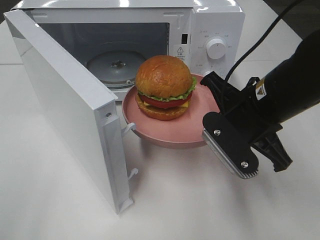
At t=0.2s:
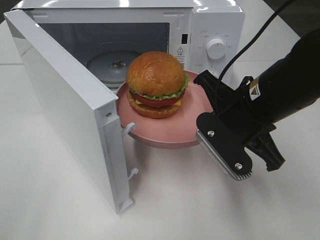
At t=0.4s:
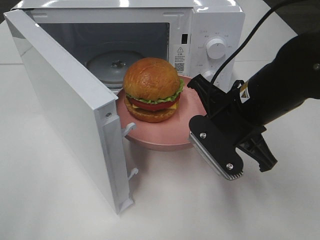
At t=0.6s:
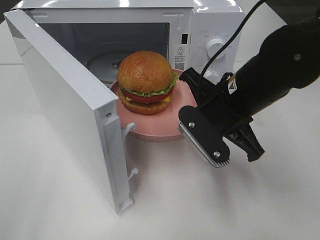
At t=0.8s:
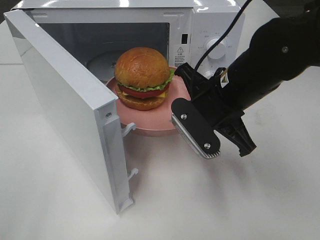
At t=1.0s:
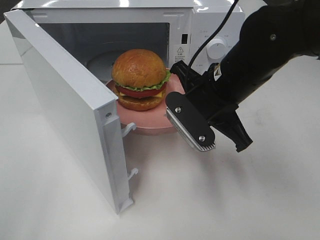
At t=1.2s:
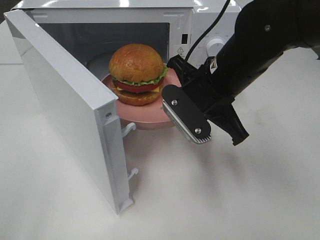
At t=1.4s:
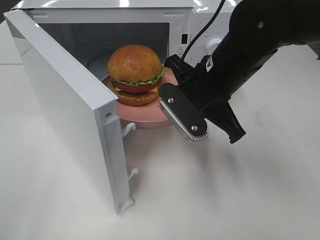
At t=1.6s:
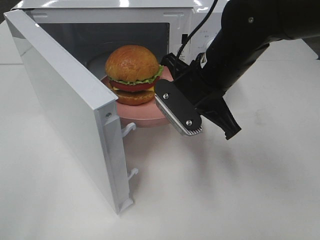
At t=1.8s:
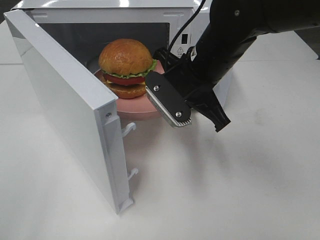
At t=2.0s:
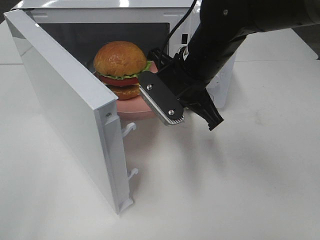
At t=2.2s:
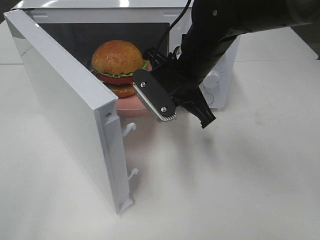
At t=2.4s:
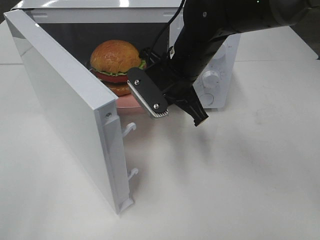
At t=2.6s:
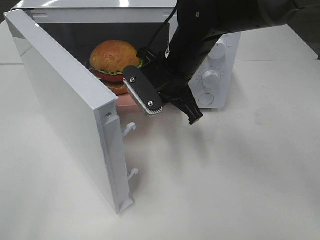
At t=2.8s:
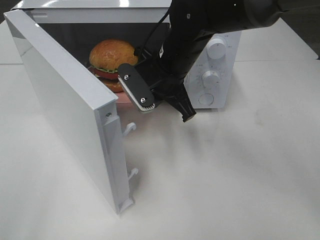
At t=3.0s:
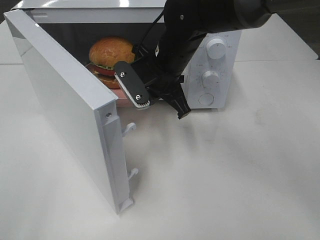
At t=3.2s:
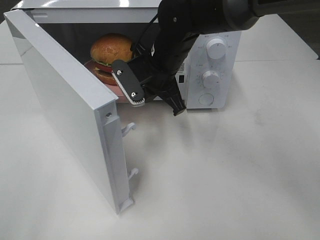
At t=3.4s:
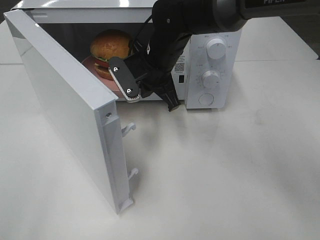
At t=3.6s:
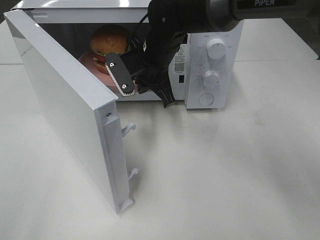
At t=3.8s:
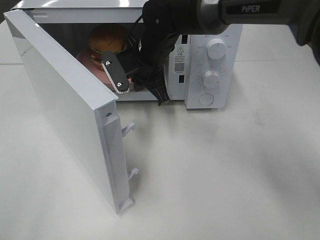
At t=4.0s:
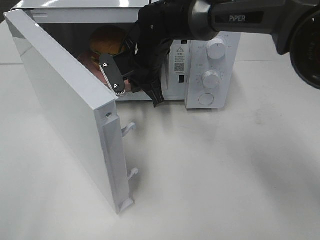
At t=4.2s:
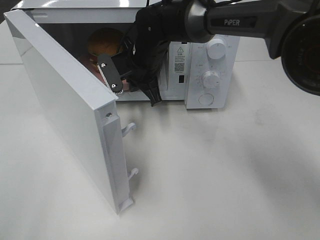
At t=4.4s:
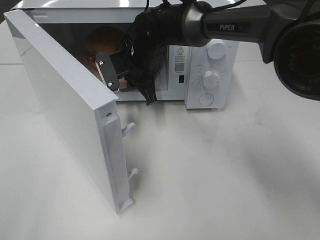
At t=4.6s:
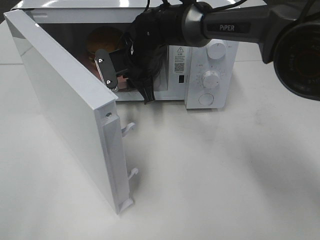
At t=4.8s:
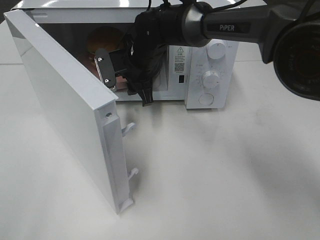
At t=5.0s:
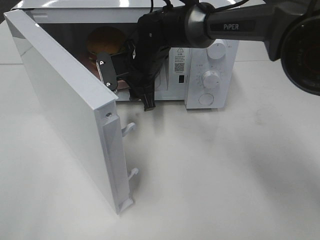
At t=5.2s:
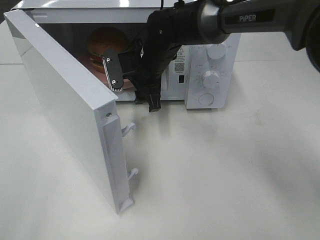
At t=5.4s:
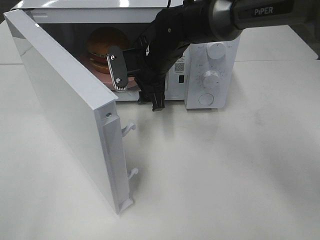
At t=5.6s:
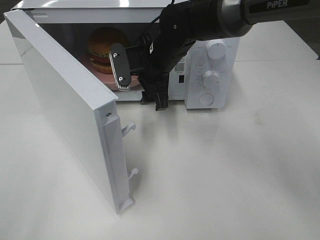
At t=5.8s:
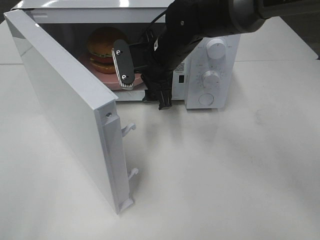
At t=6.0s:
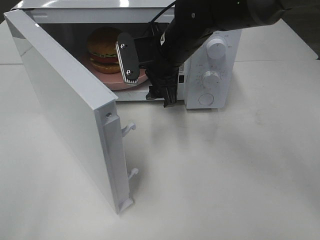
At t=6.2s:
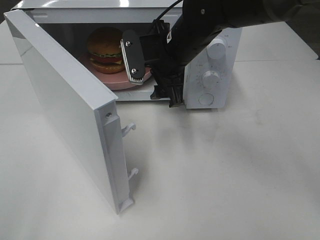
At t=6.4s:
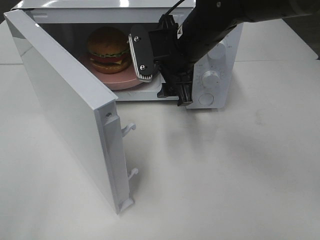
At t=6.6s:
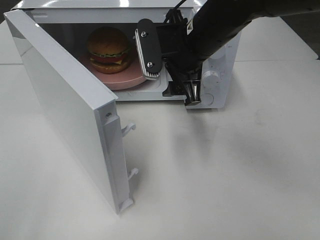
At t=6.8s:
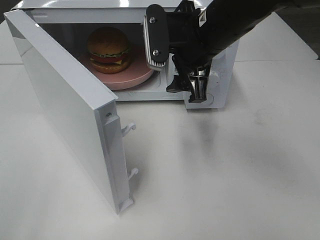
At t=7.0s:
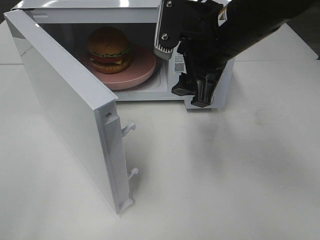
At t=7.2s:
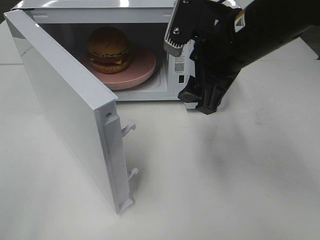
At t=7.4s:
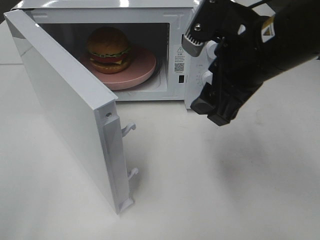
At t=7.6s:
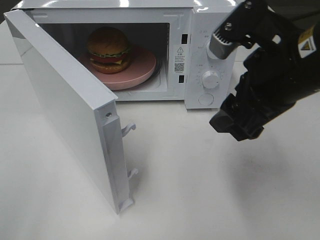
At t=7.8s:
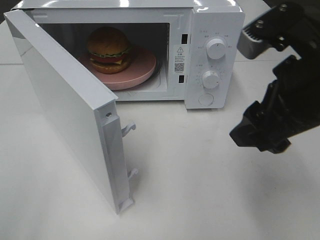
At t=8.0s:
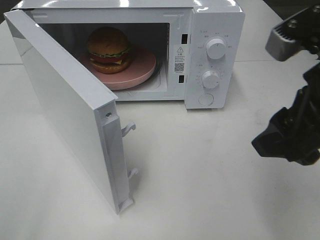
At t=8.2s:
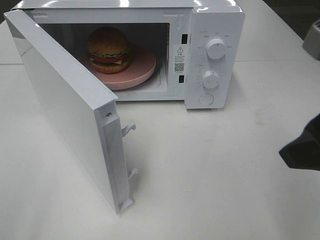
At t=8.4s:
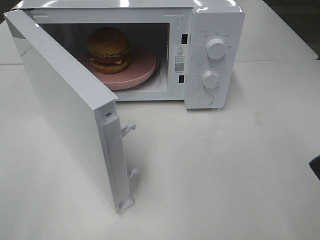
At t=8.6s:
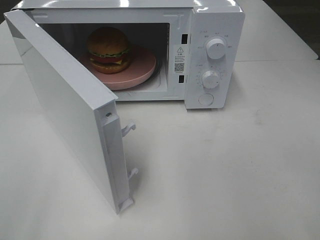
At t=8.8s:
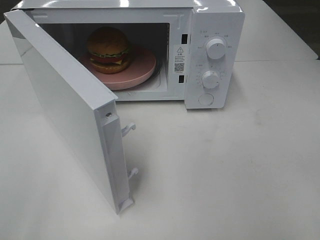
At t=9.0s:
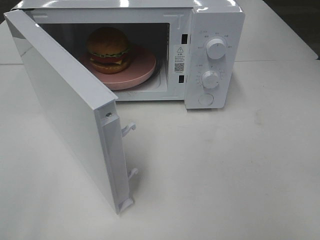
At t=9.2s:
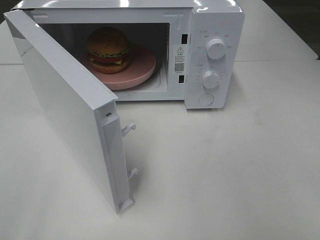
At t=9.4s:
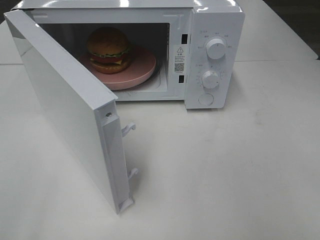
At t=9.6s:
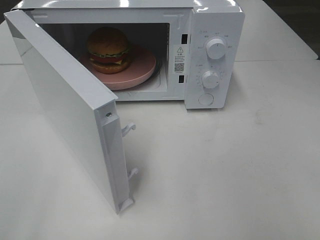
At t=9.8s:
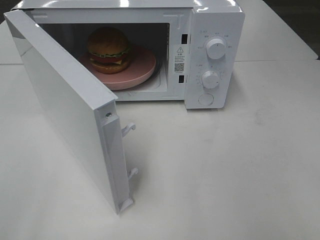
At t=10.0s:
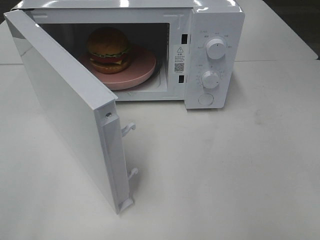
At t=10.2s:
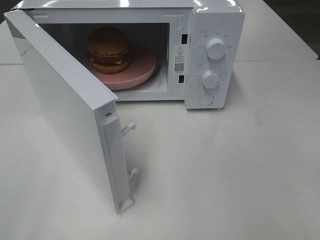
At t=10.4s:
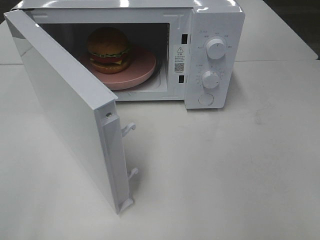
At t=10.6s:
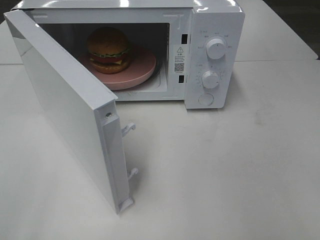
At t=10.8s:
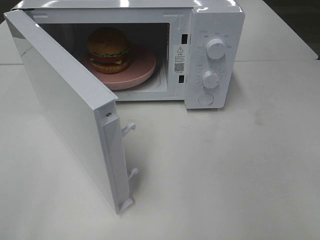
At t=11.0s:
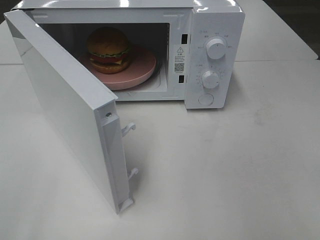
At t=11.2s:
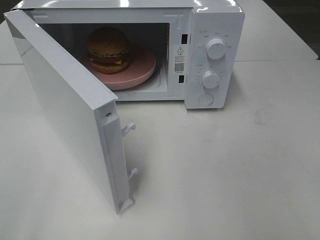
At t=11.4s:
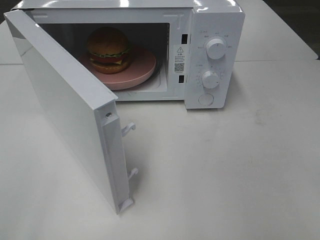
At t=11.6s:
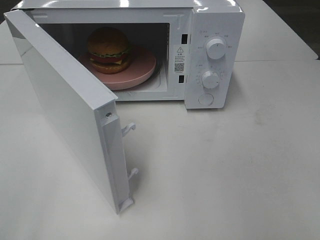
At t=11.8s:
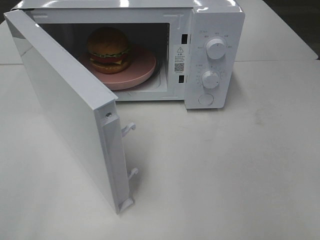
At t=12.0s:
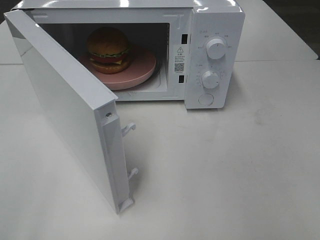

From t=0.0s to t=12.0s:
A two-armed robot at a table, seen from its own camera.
Task of the whole recording: Heat the burger.
Step, from t=0.0s to t=4.6s: Right hand: place the plate in the microwave.
From t=0.0s to t=1.6s: The right gripper heads forward and to the left, covering some 10 cm.
From t=1.6s to t=3.0s: The right gripper travels forward and to the left by approximately 10 cm.
From t=3.0s to t=4.4s: The right gripper is displaced forward by roughly 5 cm.
From t=4.4s to t=6.0s: The right gripper heads backward and to the right, covering approximately 10 cm, and opens.
From t=6.0s to t=7.6s: The right gripper moves backward, to the right and upward, some 20 cm.
From t=7.6s to t=9.0s: The right gripper heads backward and to the right, covering some 20 cm.
From t=10.4s to t=12.0s: The two grippers keep their place.

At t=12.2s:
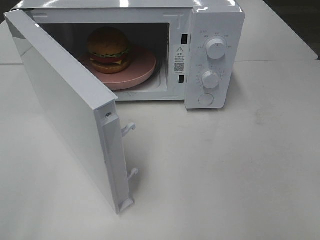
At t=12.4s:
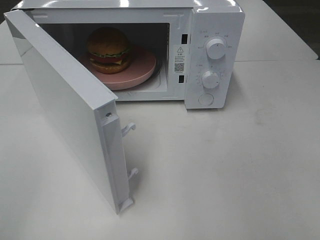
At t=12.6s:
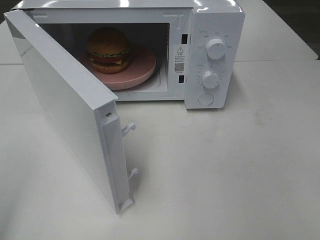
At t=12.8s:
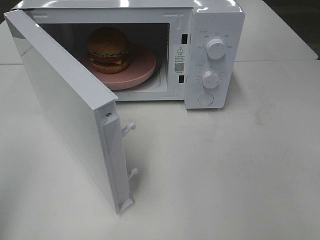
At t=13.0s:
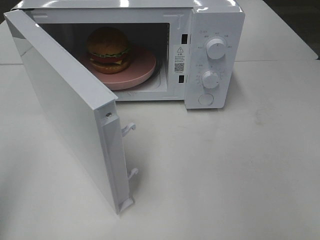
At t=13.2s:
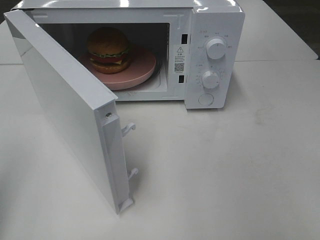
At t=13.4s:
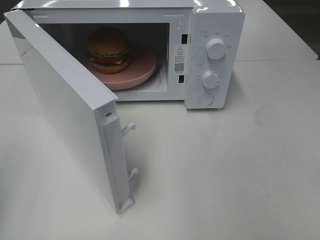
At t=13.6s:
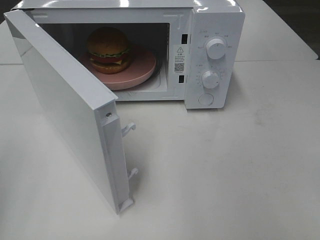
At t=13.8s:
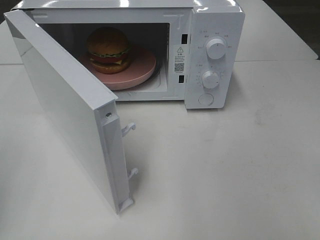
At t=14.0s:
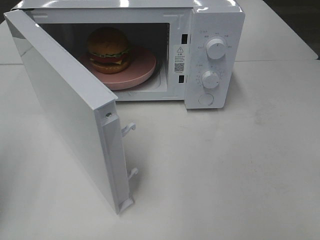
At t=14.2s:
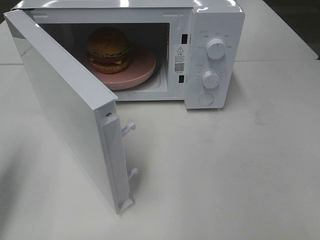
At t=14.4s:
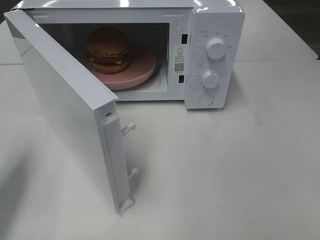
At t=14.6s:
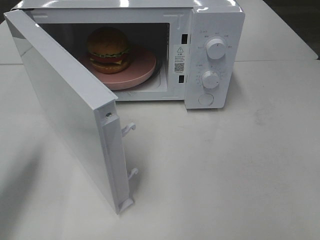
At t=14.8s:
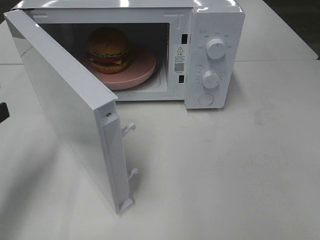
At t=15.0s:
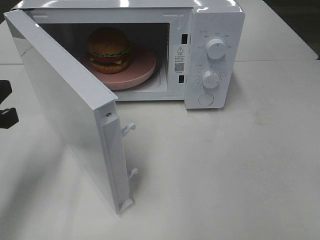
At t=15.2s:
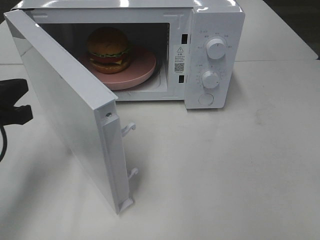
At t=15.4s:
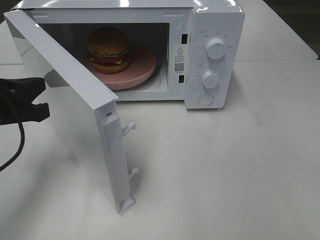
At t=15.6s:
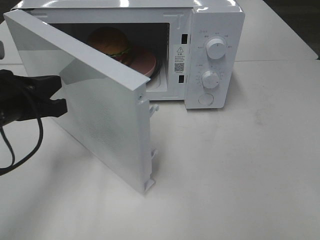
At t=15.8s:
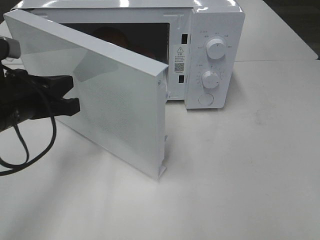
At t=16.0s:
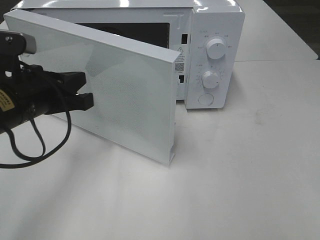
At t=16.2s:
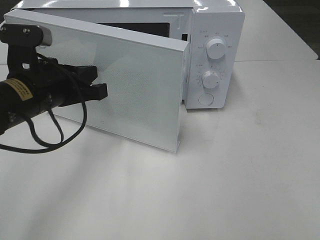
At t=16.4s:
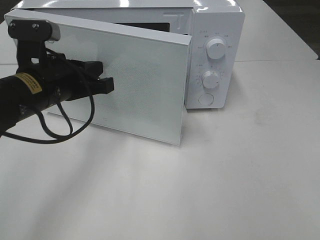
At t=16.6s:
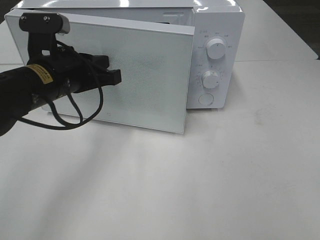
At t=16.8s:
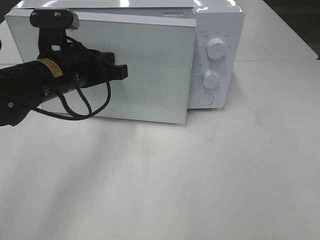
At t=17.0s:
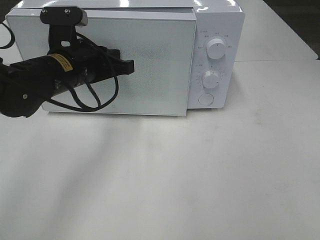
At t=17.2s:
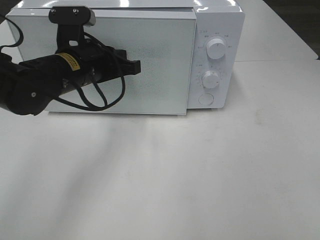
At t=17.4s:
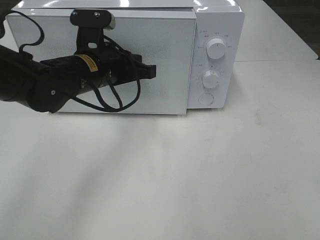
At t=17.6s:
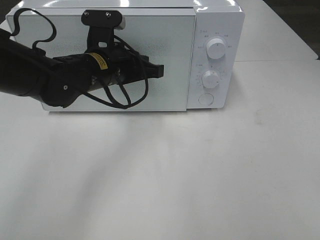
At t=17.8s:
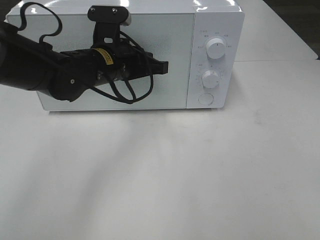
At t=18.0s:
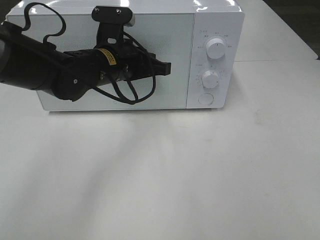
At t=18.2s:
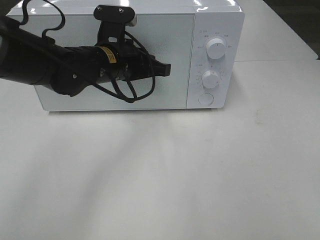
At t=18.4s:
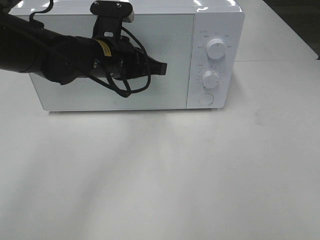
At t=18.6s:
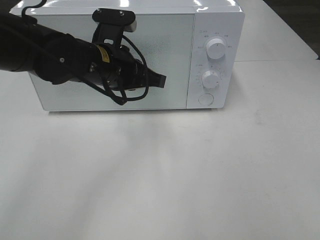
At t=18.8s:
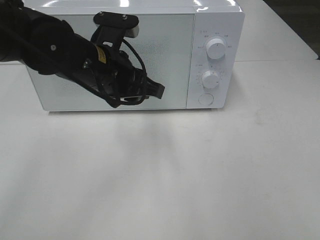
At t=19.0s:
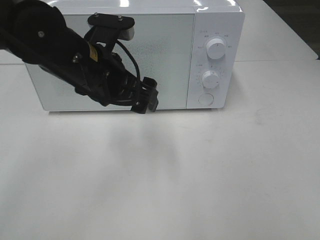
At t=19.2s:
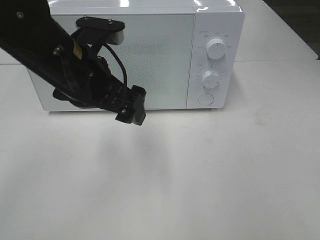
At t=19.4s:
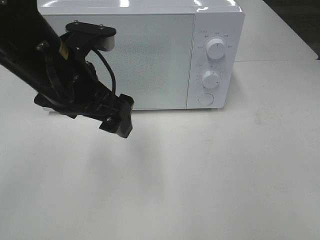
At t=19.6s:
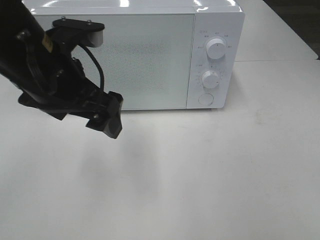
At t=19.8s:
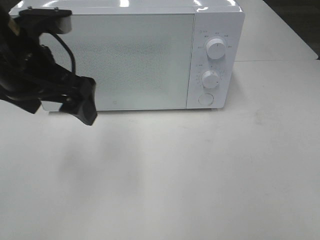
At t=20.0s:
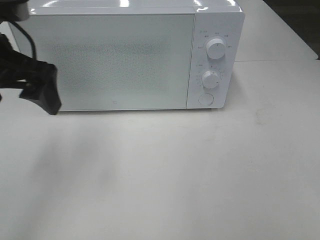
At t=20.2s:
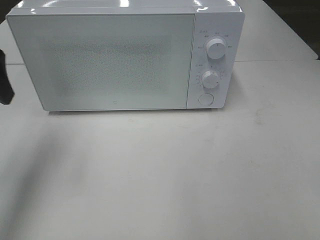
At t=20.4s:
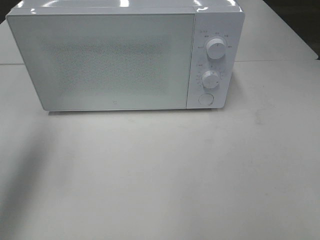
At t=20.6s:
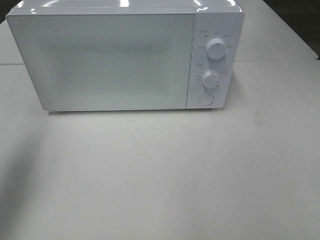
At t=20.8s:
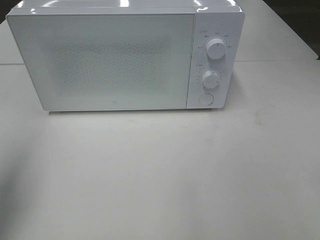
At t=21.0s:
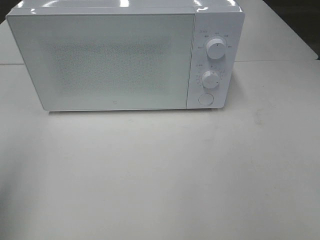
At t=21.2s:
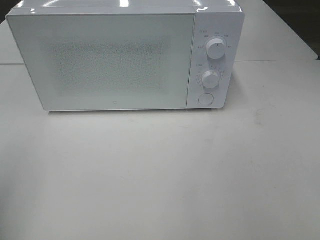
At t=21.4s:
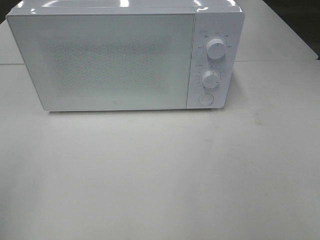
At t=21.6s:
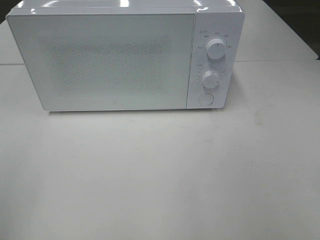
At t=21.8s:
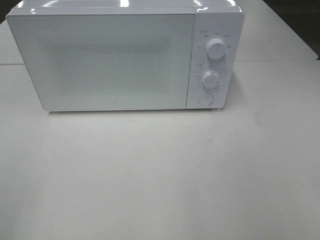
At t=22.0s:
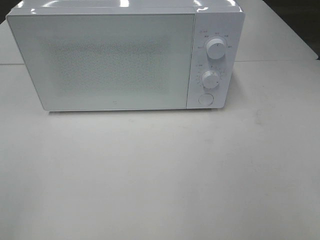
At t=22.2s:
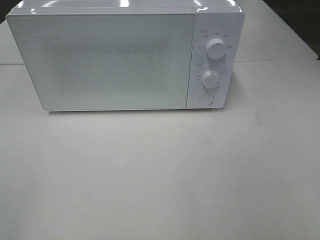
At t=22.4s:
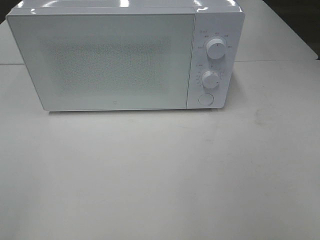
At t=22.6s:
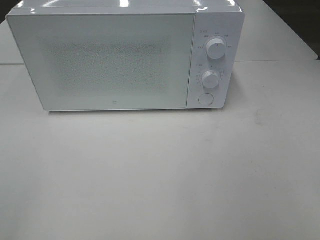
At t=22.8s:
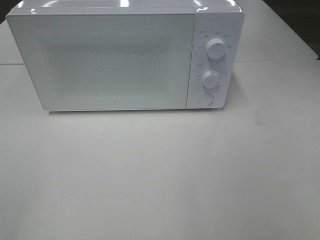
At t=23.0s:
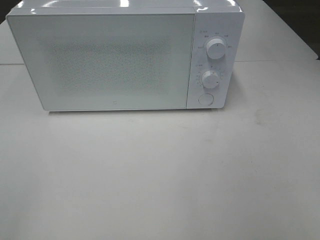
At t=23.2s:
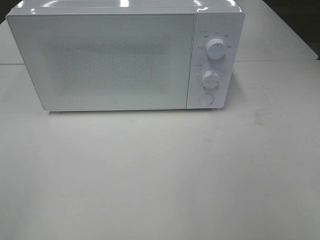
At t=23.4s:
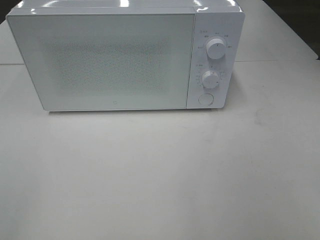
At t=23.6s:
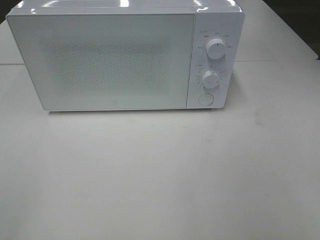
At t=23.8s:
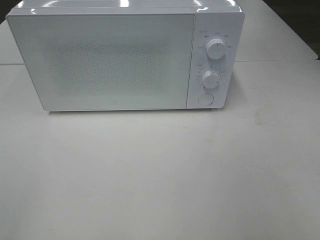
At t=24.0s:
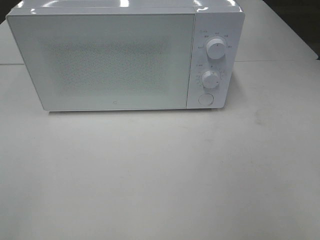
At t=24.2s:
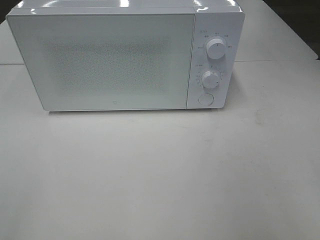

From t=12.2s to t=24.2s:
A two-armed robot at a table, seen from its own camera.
Task of the whole recording: Heat the burger.
Step, from t=12.2s to t=18.4s: Left hand: close the microwave door.
From t=13.8s to t=15.2s: The left gripper moves to the right and forward, about 10 cm.
From t=15.2s to t=16.6s: The left gripper shifts roughly 15 cm to the right and forward.
From t=16.6s to t=18.2s: The left gripper is displaced to the right and forward by about 10 cm.
From t=18.2s to t=19.8s: The left gripper goes about 15 cm backward, to the left and upward, and opens.
From t=19.8s to t=21.2s: The left gripper is displaced to the left and backward by some 20 cm.
